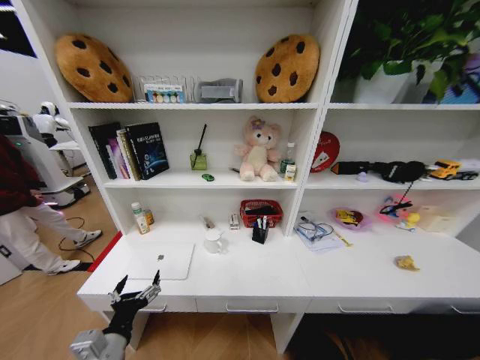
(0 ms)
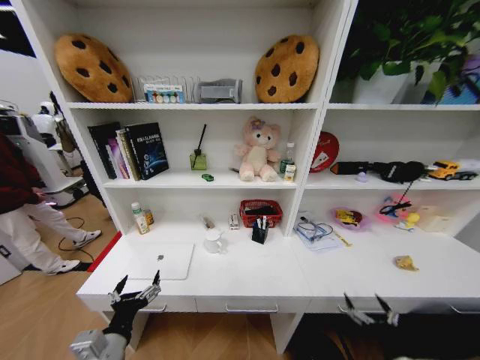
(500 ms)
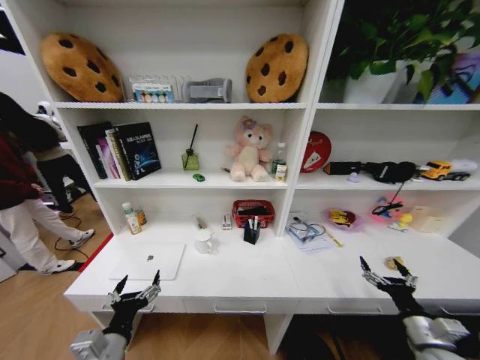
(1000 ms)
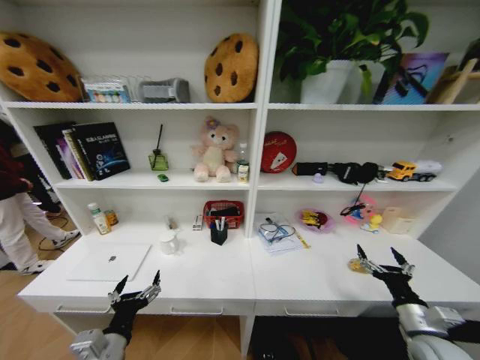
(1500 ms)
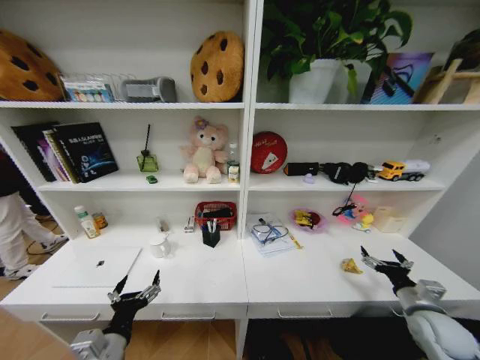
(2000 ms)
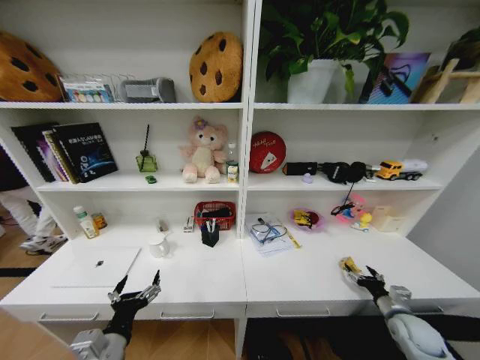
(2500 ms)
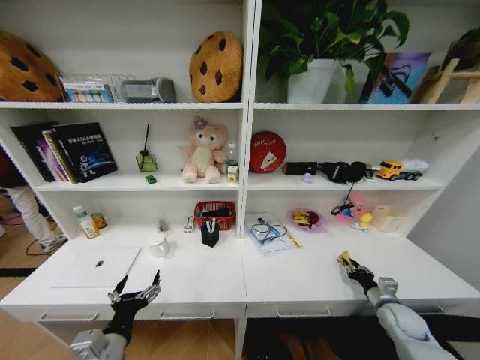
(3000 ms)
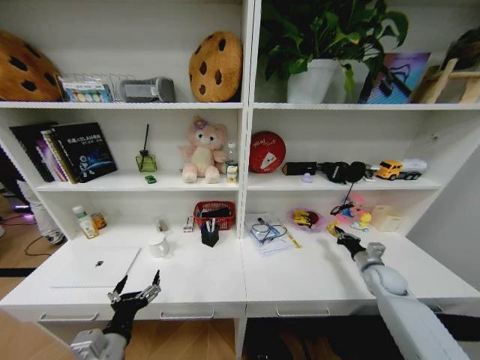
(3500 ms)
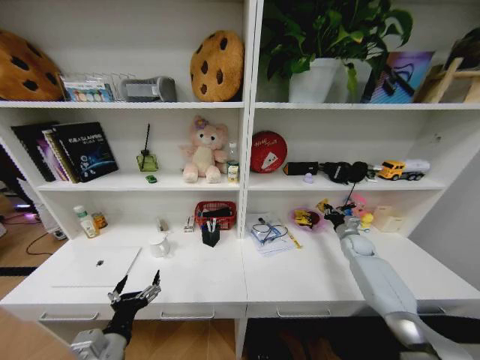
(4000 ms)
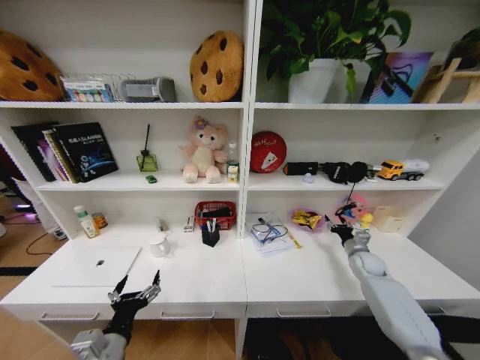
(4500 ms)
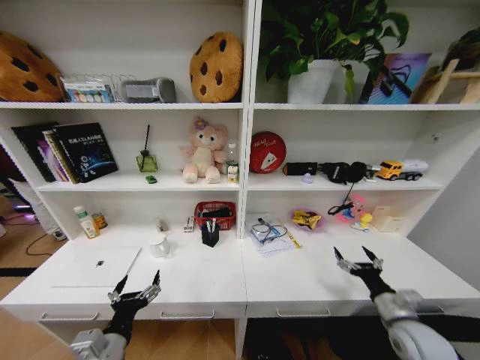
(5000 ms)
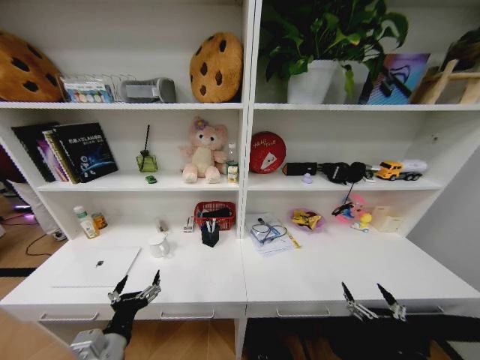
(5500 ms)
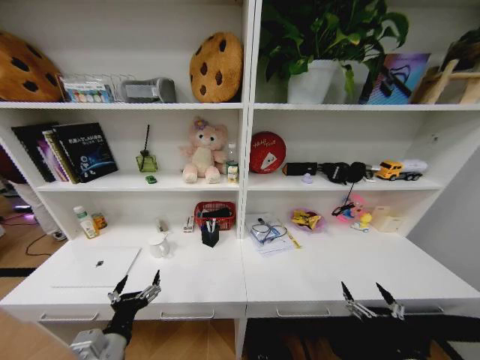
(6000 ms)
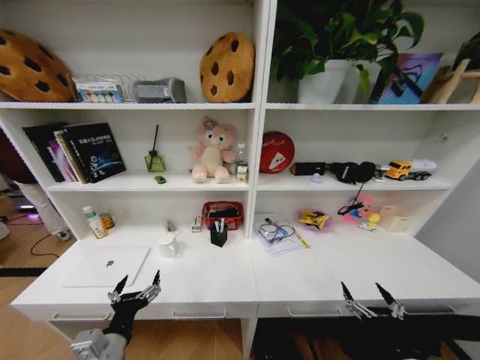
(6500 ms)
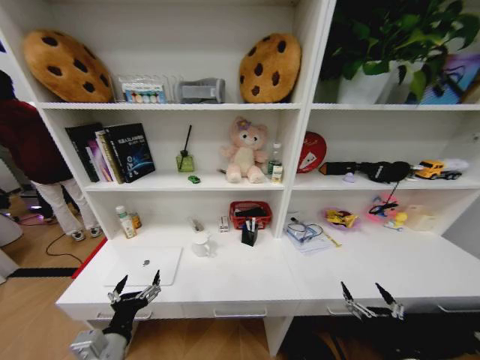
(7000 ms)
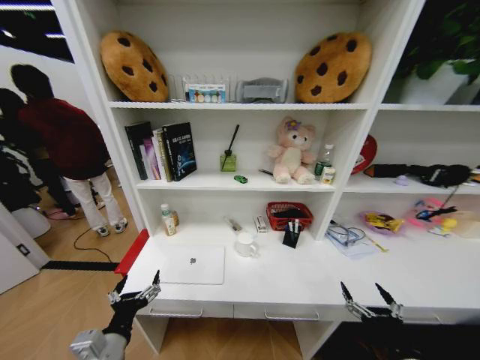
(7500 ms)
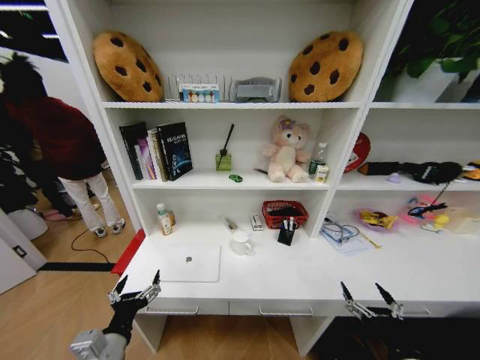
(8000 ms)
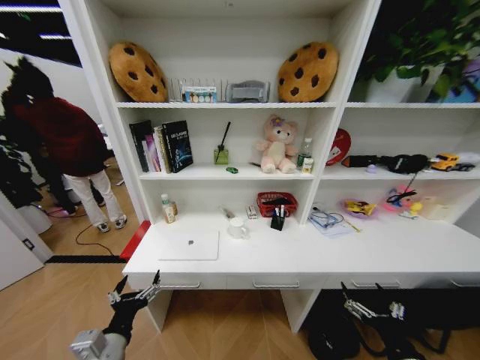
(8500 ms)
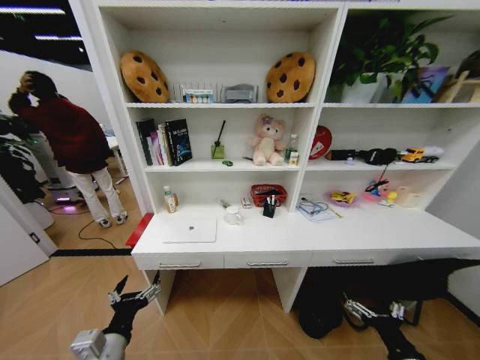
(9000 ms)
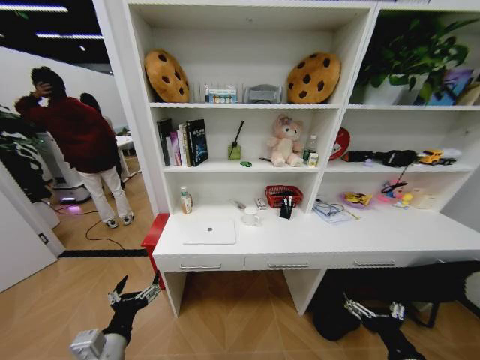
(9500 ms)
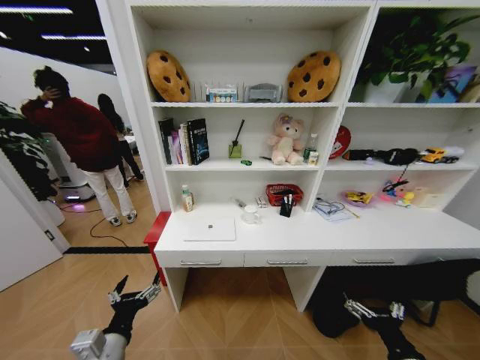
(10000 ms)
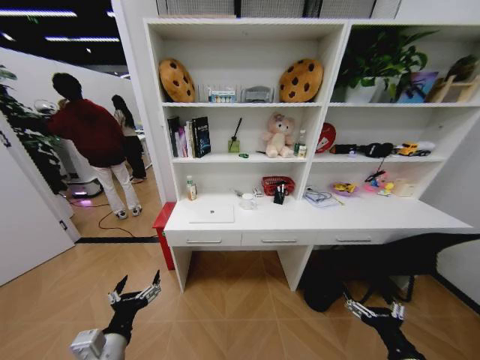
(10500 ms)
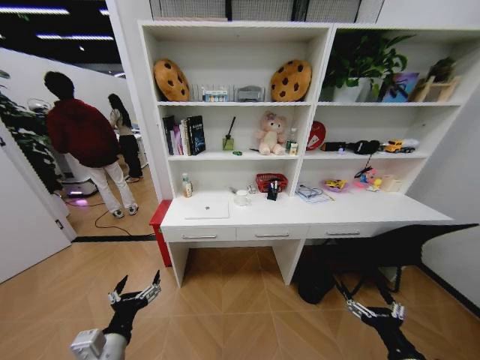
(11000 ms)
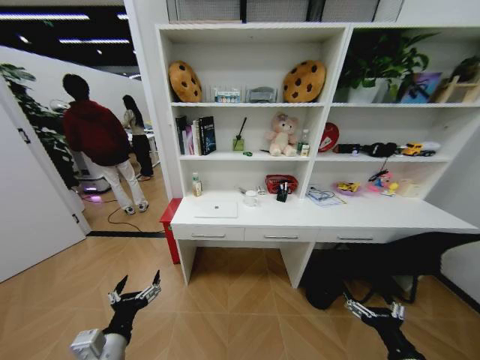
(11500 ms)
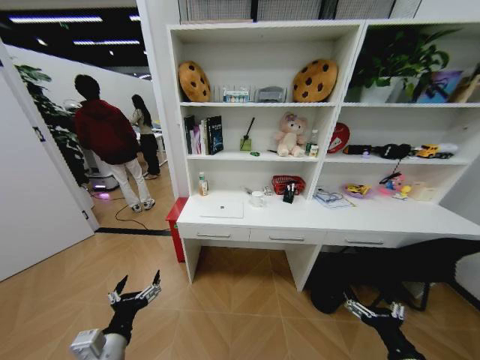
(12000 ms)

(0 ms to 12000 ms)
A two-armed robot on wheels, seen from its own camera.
Task of the whole recording: Organize the objects on the table.
0 ms - 2000 ms: The right gripper goes about 40 cm upward and forward.
2000 ms - 4000 ms: The right gripper shifts about 25 cm forward, and closes its fingers.
4000 ms - 6000 ms: The right gripper is displaced backward by approximately 40 cm, and opens up.

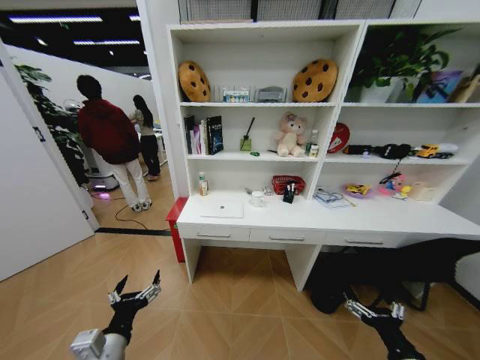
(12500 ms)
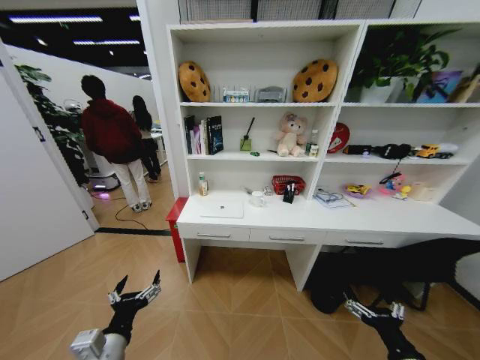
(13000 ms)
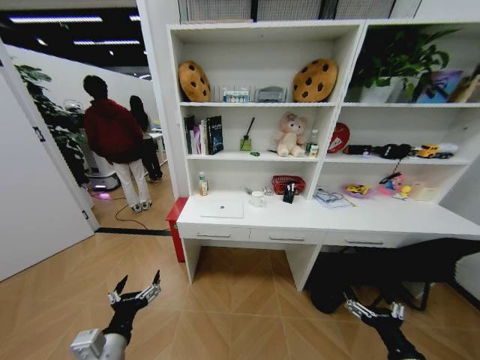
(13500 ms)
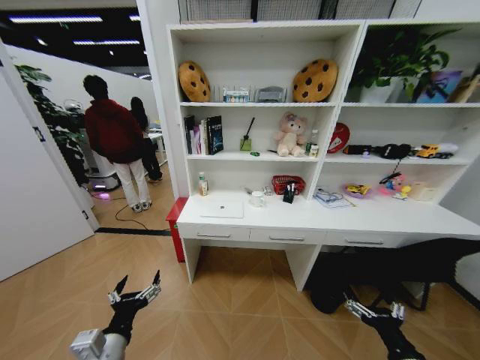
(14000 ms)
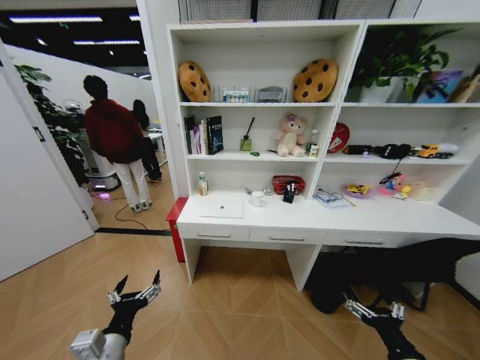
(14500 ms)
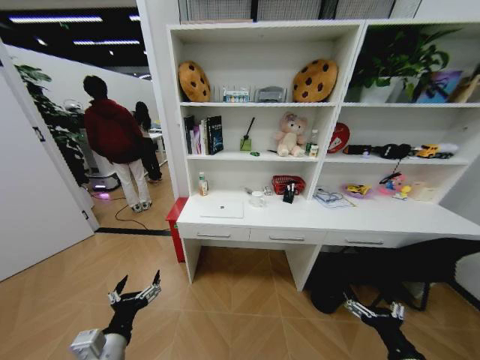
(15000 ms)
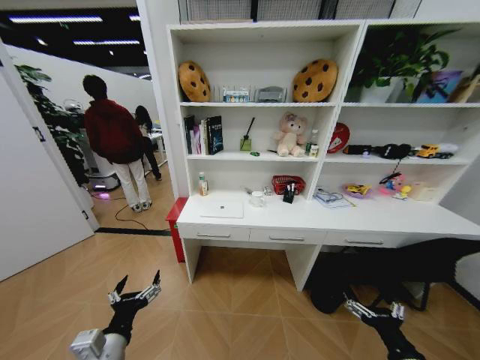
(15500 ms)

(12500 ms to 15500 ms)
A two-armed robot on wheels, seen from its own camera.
Task of the whole recording: Organize the objects on the table.
12500 ms - 15500 ms: Both grippers stay put.
